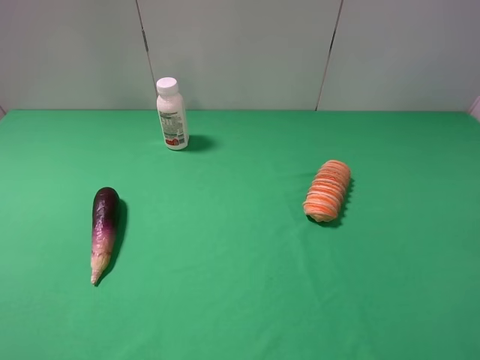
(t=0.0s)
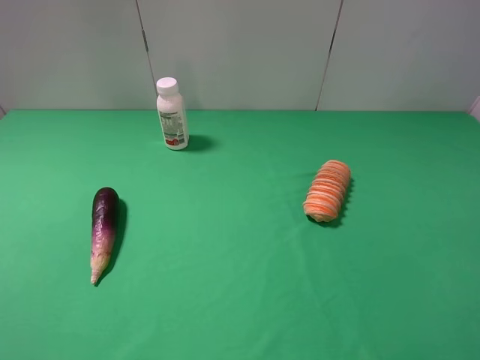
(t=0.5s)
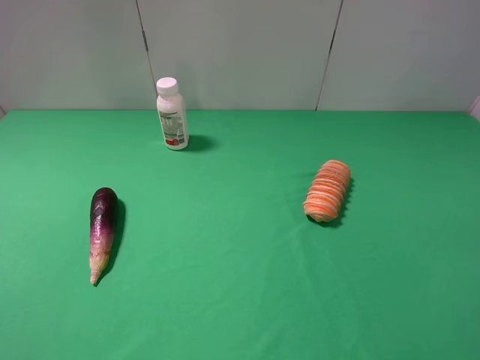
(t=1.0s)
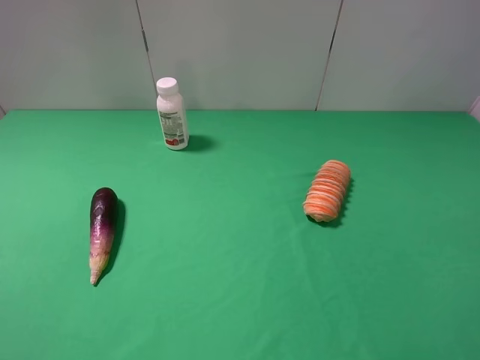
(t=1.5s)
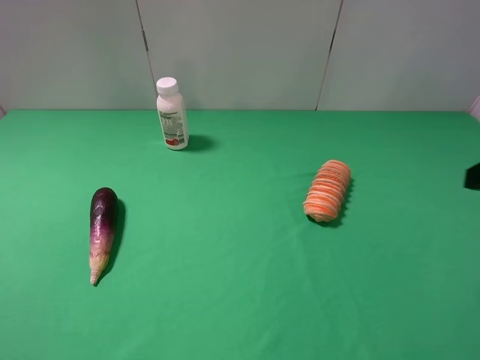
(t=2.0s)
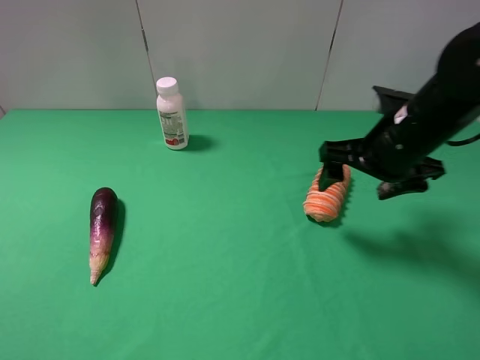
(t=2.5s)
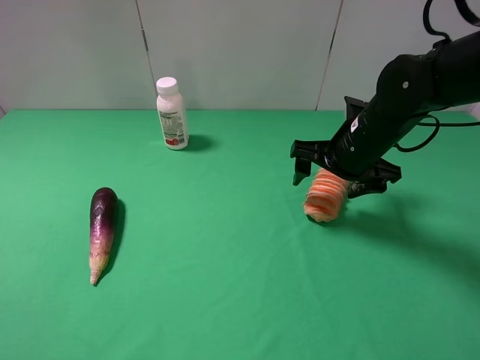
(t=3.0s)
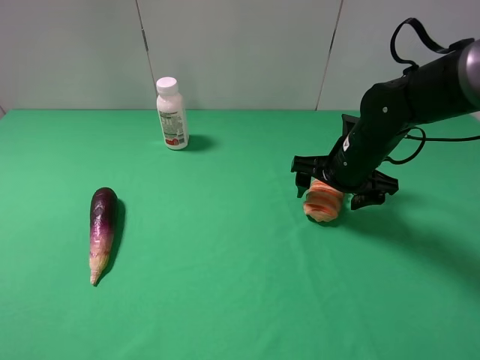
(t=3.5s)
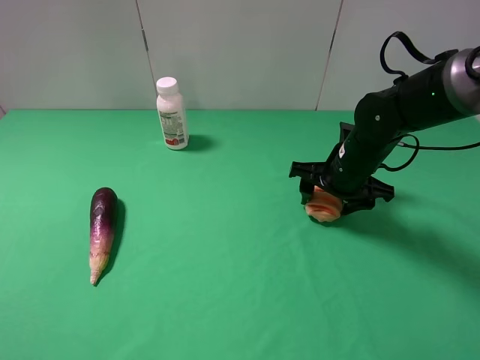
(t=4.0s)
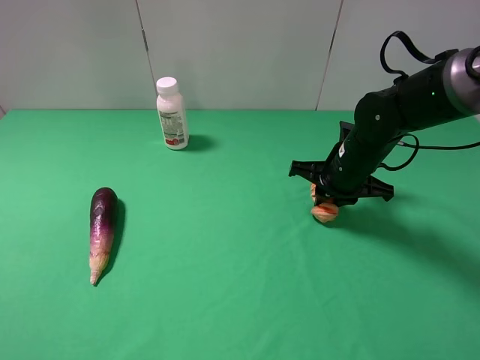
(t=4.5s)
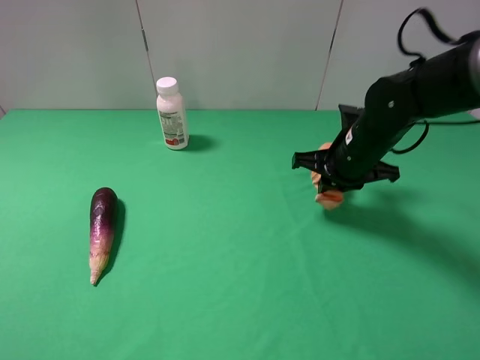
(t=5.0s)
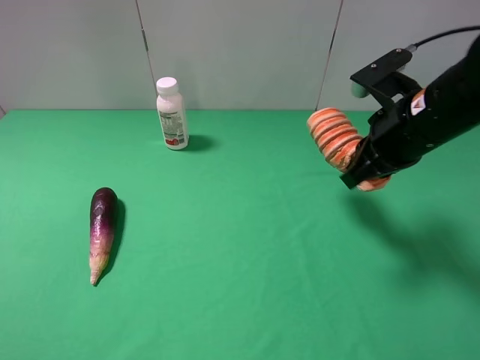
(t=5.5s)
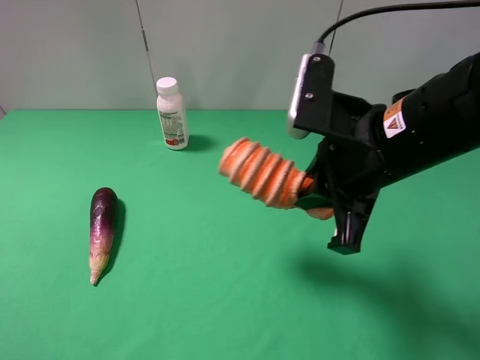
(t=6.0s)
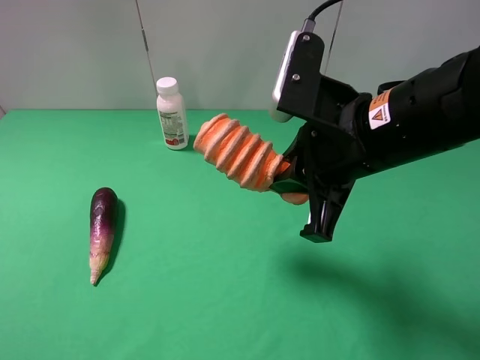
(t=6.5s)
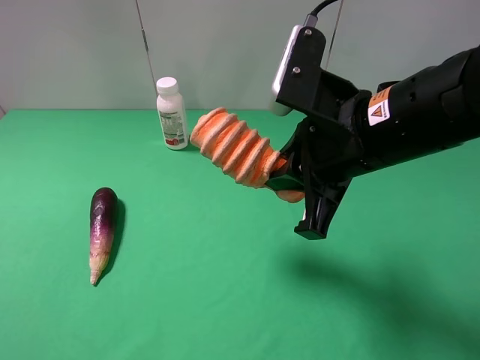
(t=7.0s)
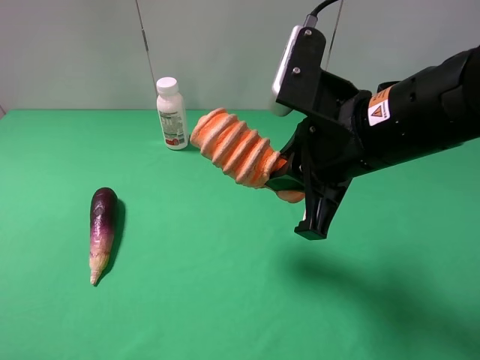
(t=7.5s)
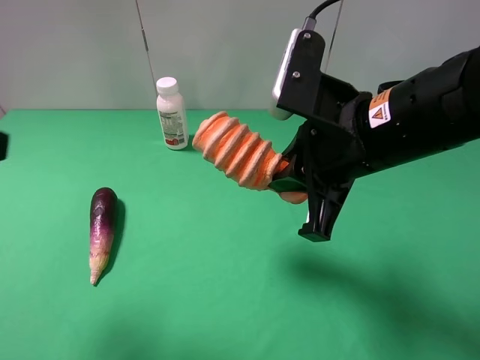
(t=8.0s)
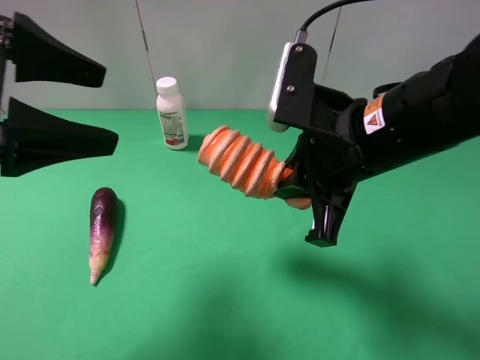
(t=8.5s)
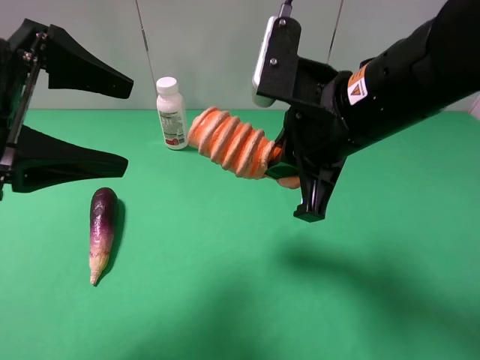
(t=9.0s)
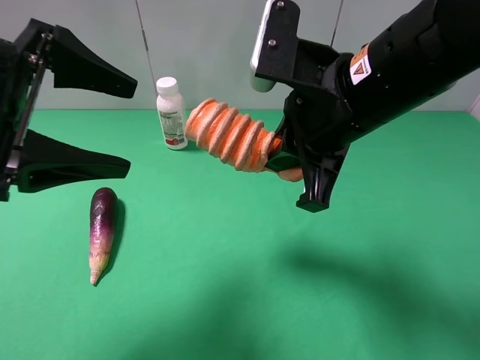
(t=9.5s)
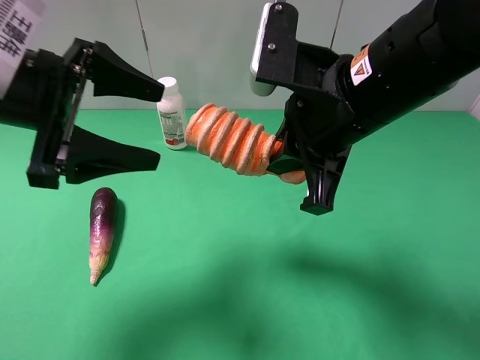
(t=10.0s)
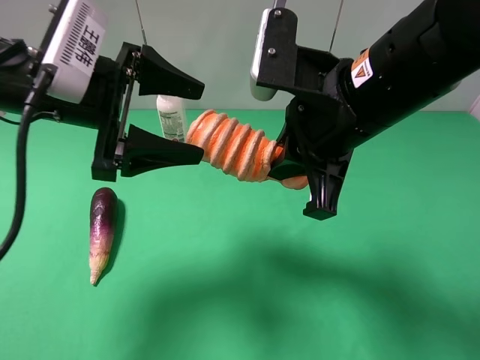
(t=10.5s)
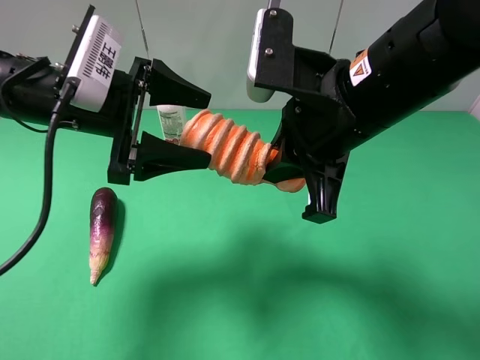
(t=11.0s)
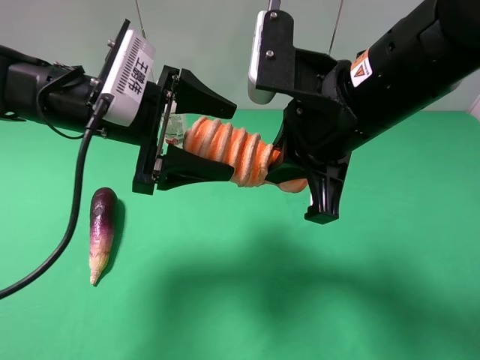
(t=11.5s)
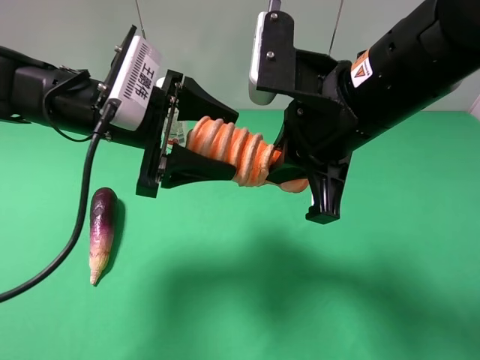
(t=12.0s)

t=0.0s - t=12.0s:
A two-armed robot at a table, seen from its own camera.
Task of the whole recording: use the right gripper to pick up the item and transfer it from the right gripper to the left gripper.
Step, t=0.0s - t=4.0s: Use the right gripper to grab the bread on the right side of the table.
t=2.0s - t=4.0s: The right gripper travels forward, downward and to the left by roughly 25 cm, and closes up.
t=4.0s - t=6.0s: The right gripper goes some 20 cm upward and backward, and closes its fingers.
t=6.0s - t=8.0s: The left gripper travels forward and upward by some 10 cm.
t=8.0s - t=10.0s: The left gripper goes about 15 cm forward, downward and to the right.
t=10.0s - t=12.0s: The left gripper travels to the right and downward by about 10 cm.

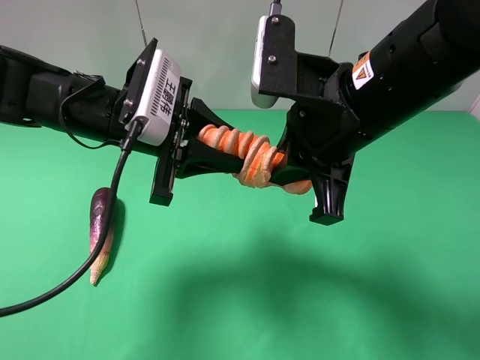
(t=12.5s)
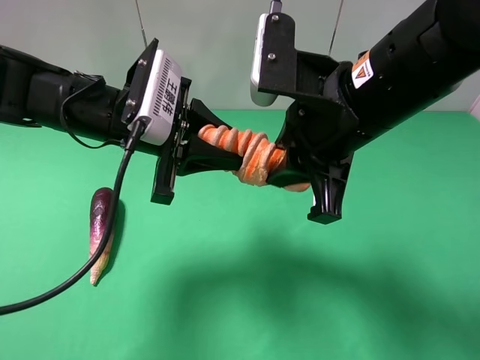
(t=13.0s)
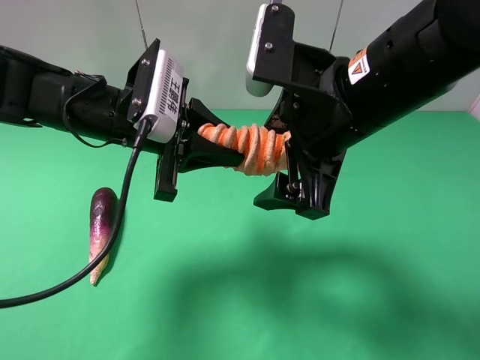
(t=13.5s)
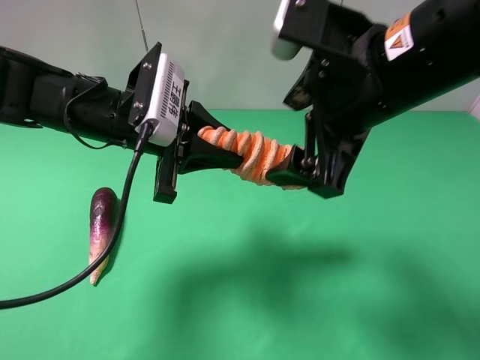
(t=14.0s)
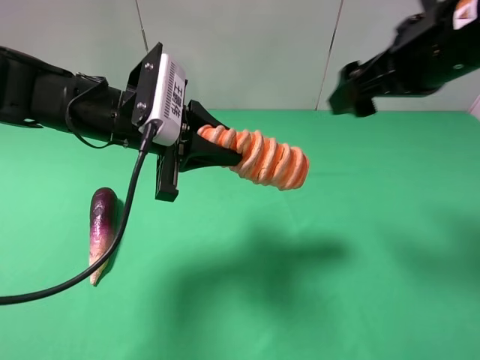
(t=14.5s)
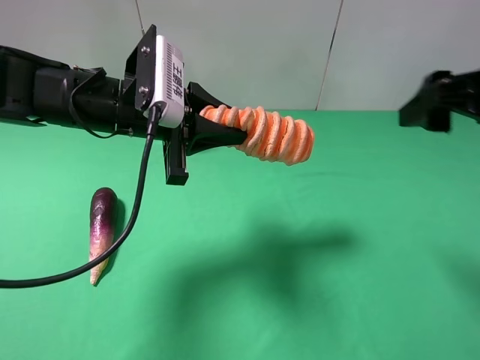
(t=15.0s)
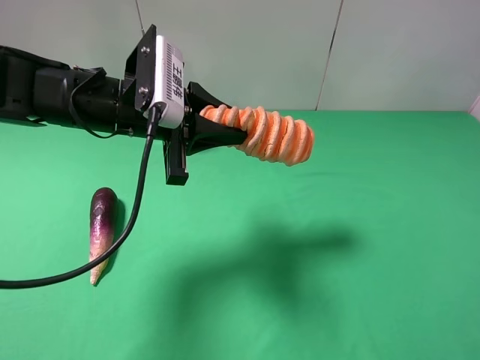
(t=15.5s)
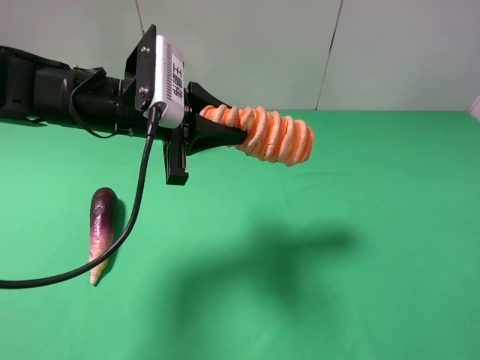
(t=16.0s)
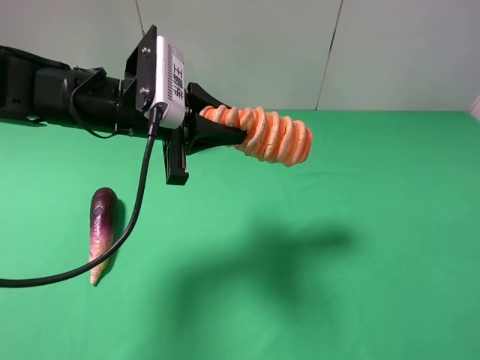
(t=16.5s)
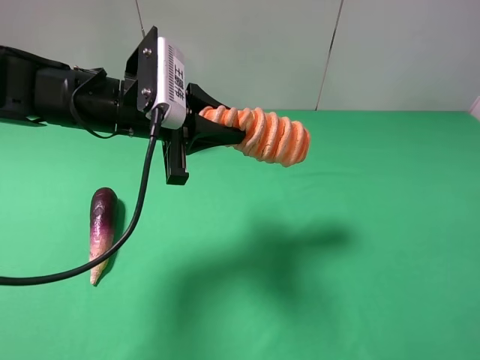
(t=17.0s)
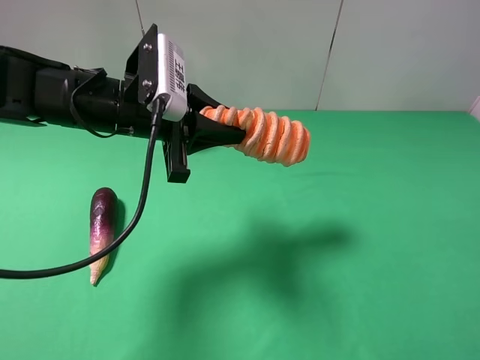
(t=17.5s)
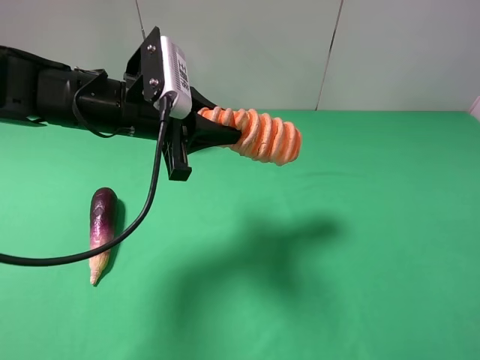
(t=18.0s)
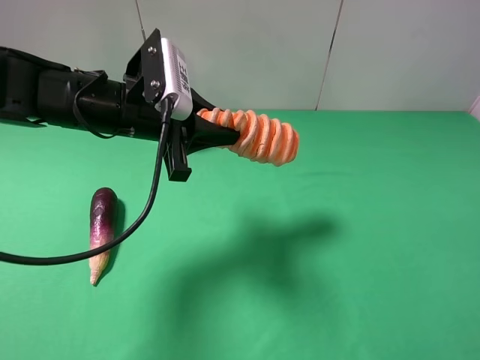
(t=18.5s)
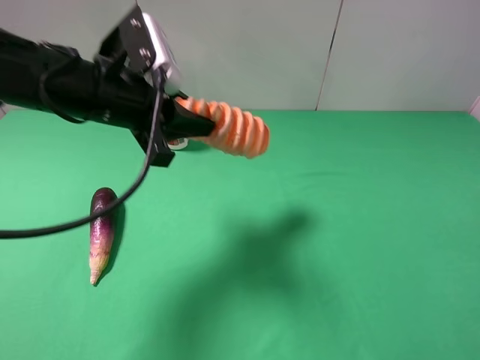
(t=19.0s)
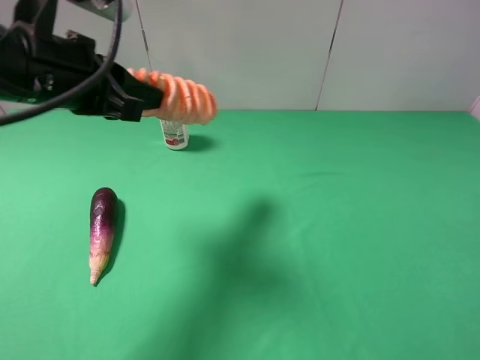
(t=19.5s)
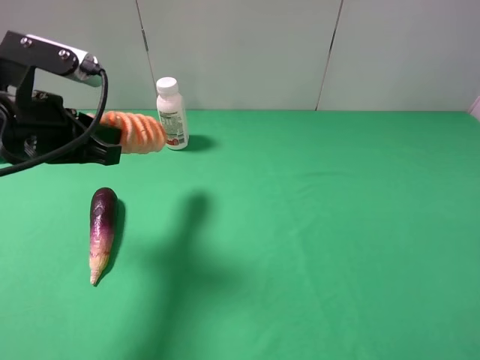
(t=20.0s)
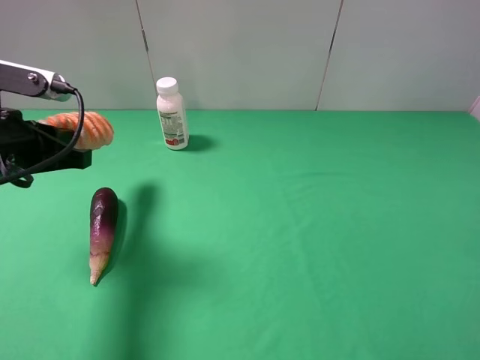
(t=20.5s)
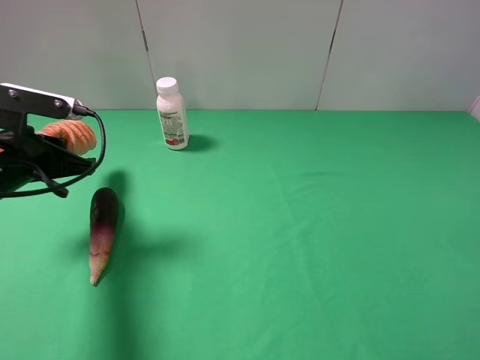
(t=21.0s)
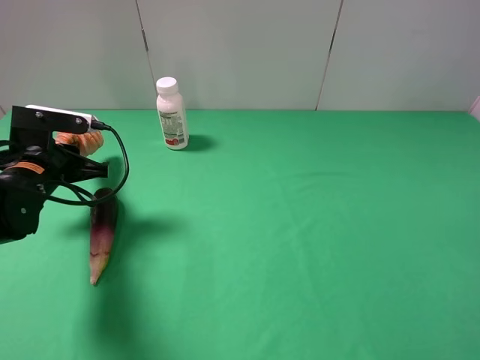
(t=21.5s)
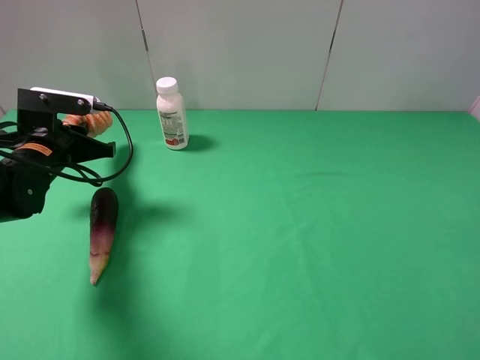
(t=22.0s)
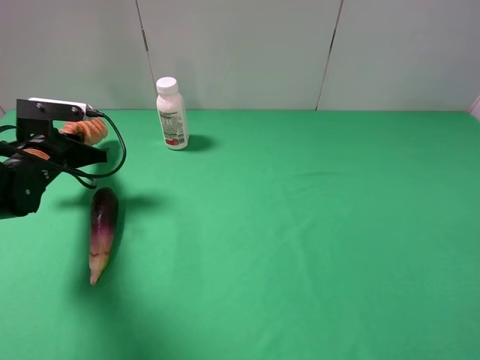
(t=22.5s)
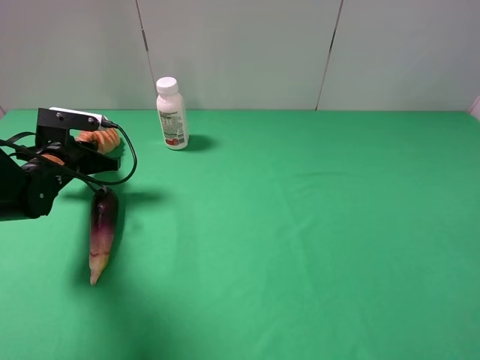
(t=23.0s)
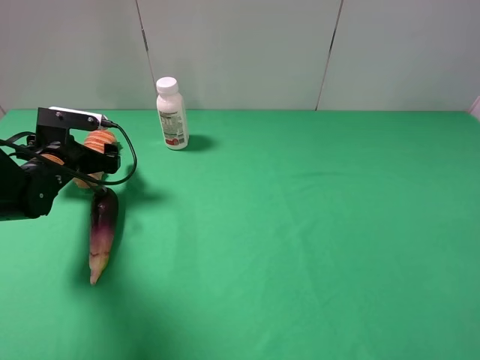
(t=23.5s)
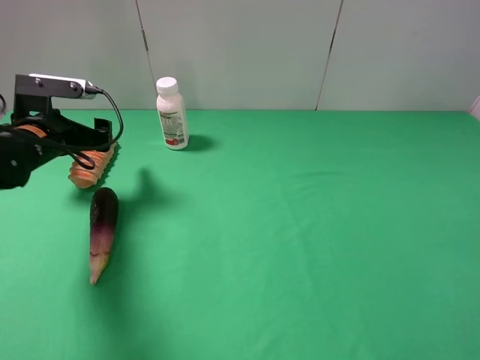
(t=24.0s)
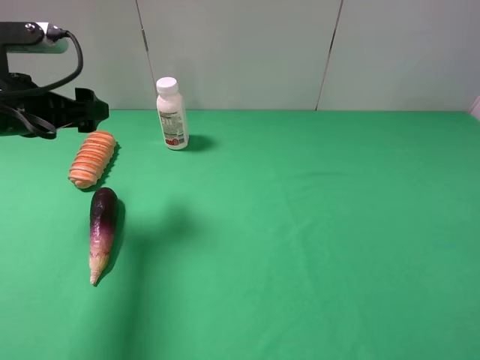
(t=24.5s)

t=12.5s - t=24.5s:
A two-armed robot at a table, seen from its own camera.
Task of the whole recording: use the right gripper to pick up the item and transfer it from the right gripper to the left gripper.
Step, t=13.5s - t=23.5s: The left gripper places bread on the left side of the table.
t=12.5s - t=14.5s: The right gripper moves to the right and forward, roughly 10 cm, and opens its fingers.
t=14.5s - t=16.5s: The right gripper moves backward and to the right, about 25 cm.
t=16.5s - t=18.5s: There are only small adjustments of the grippers.
t=18.5s - t=20.5s: The left gripper heads to the left and backward, covering some 15 cm.
t=20.5s - t=22.5s: The left gripper is displaced downward and forward by roughly 15 cm.
t=22.5s - t=24.5s: The left gripper goes approximately 10 cm upward, and opens up.

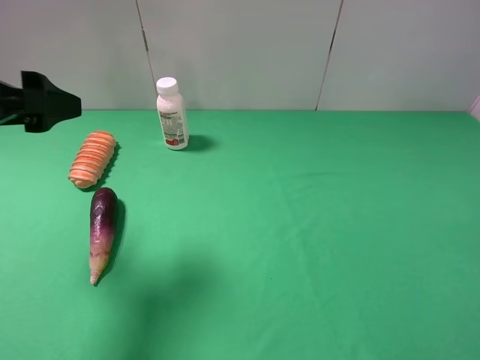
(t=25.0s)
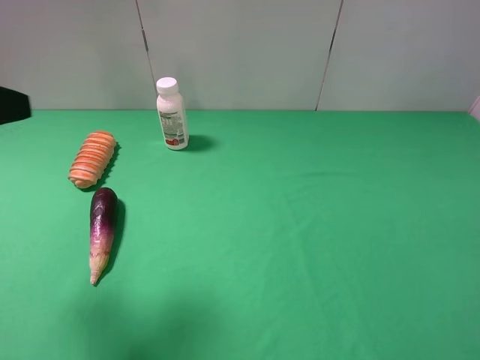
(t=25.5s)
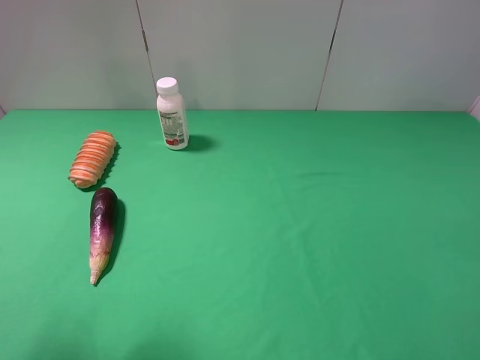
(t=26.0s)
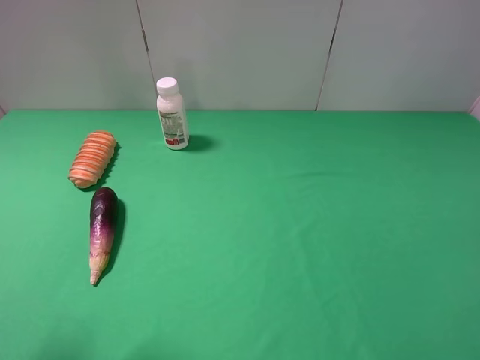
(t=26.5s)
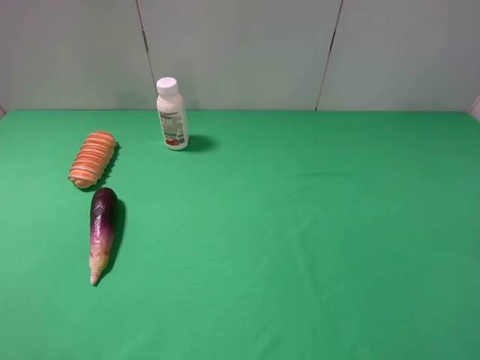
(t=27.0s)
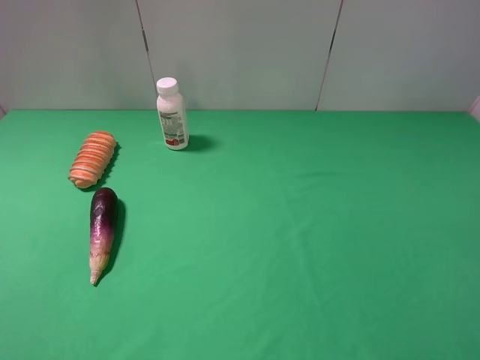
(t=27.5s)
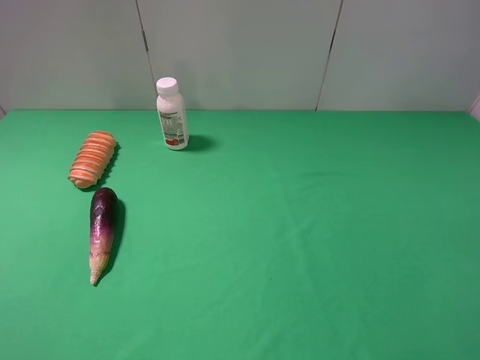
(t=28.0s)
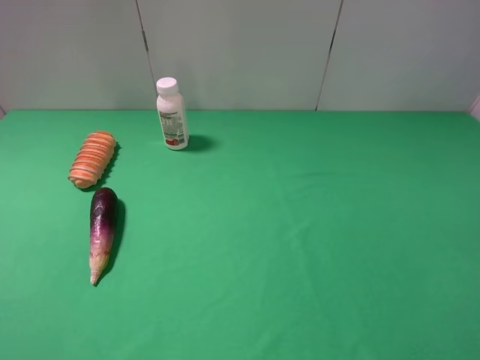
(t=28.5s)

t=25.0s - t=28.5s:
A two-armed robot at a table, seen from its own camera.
Task of the whole recording: use the right gripper to pick up the item and transfer it from the right gripper to the left gripper.
t=25.0s - t=27.0s: The left gripper shifts approximately 20 cm backward.
